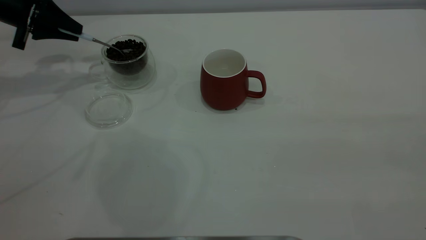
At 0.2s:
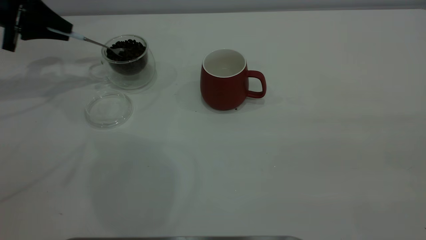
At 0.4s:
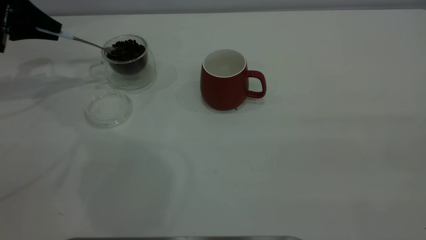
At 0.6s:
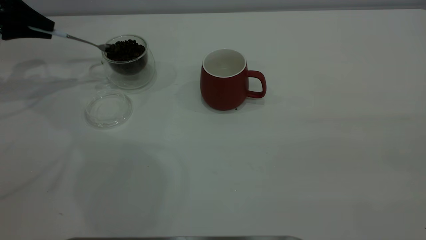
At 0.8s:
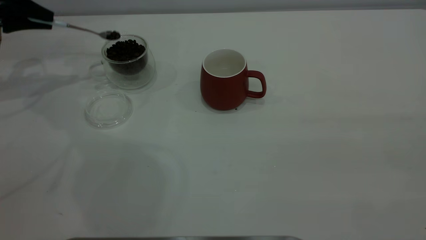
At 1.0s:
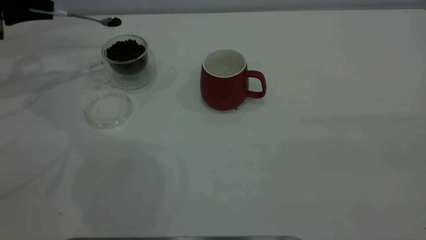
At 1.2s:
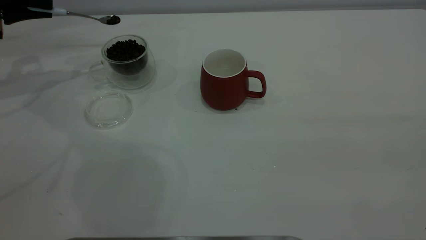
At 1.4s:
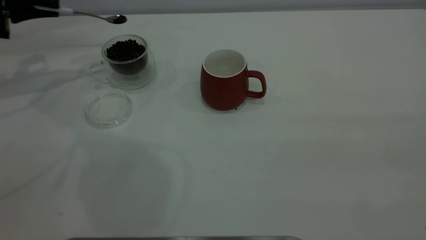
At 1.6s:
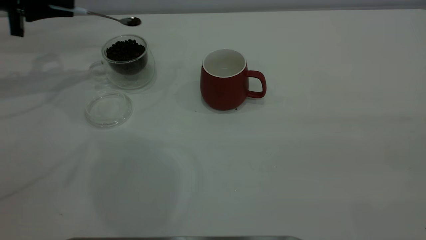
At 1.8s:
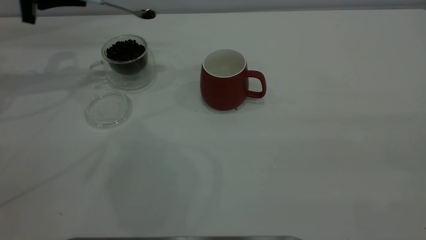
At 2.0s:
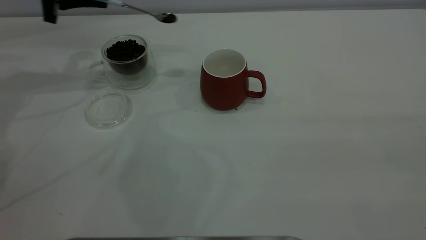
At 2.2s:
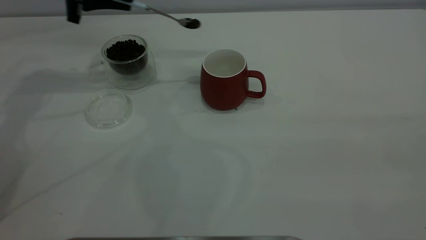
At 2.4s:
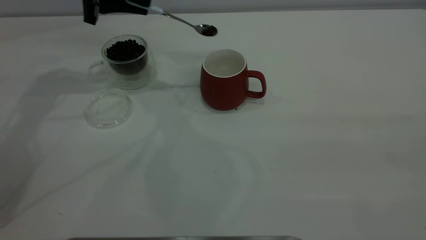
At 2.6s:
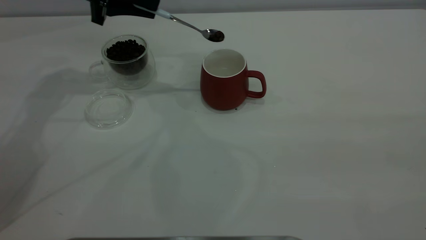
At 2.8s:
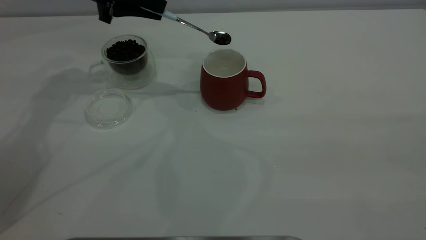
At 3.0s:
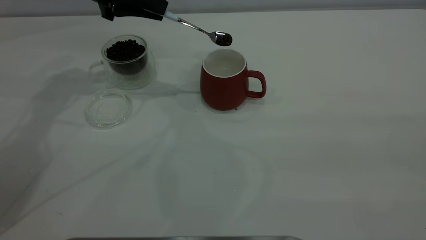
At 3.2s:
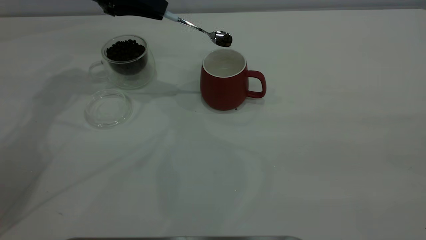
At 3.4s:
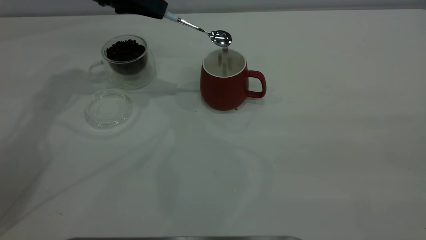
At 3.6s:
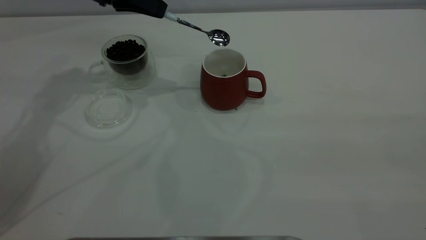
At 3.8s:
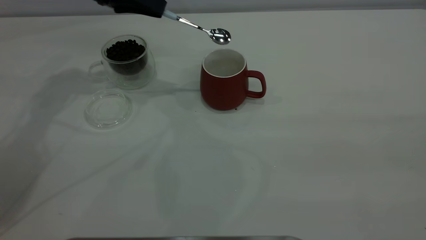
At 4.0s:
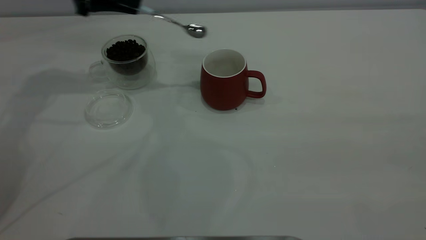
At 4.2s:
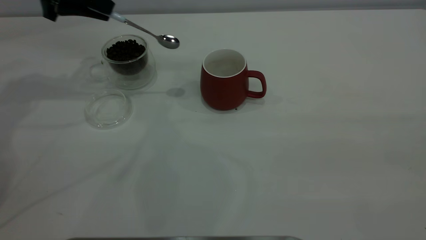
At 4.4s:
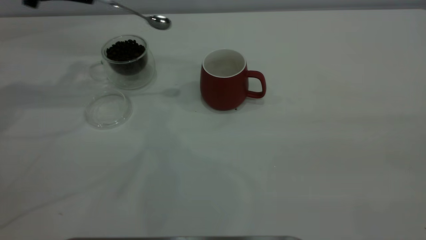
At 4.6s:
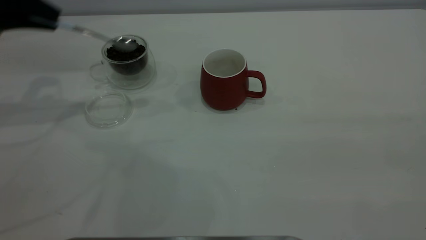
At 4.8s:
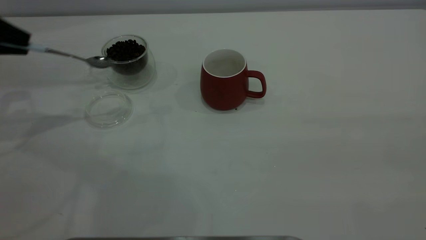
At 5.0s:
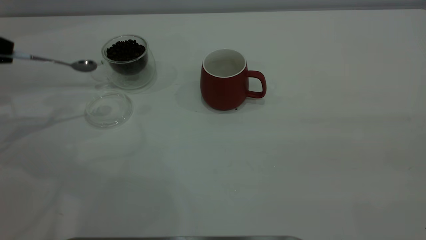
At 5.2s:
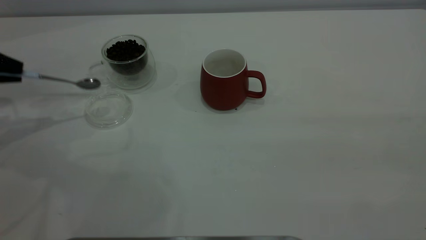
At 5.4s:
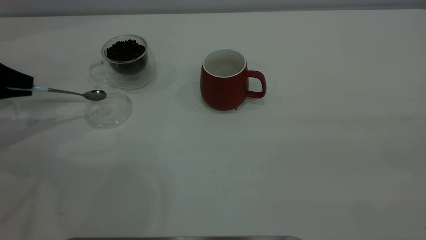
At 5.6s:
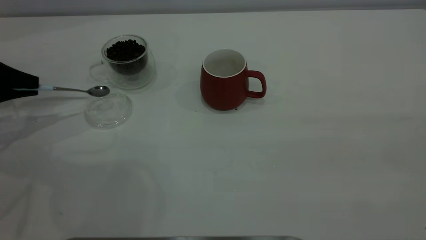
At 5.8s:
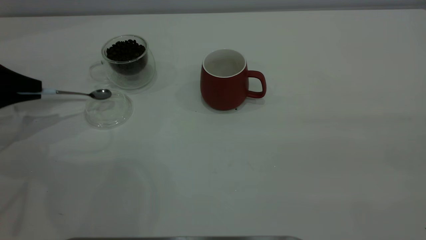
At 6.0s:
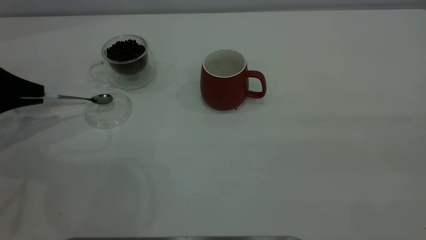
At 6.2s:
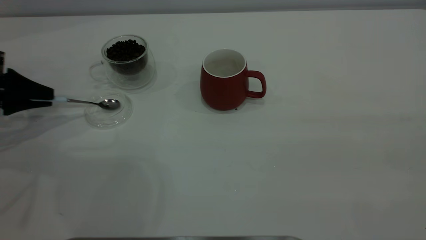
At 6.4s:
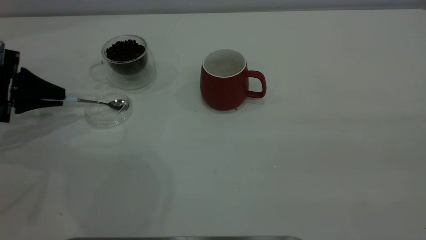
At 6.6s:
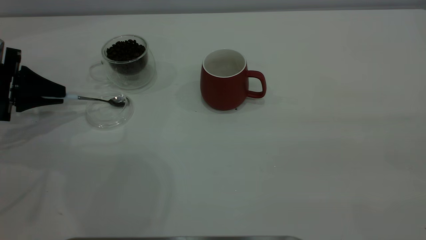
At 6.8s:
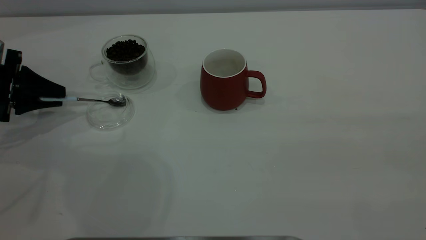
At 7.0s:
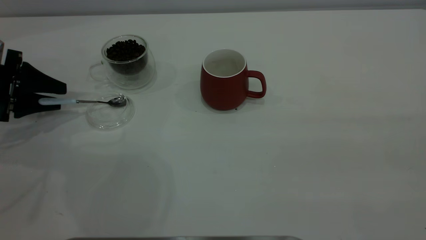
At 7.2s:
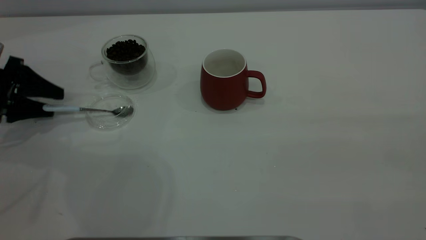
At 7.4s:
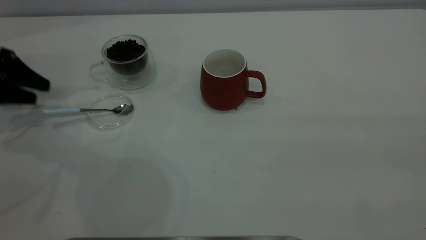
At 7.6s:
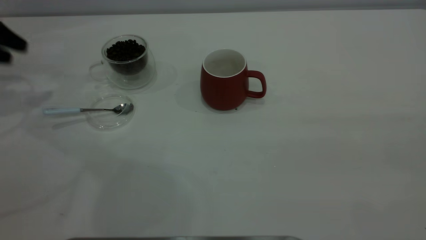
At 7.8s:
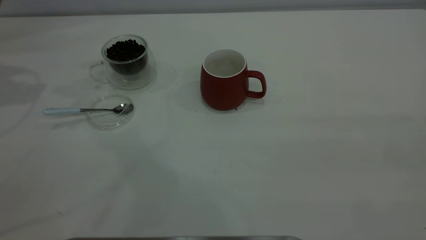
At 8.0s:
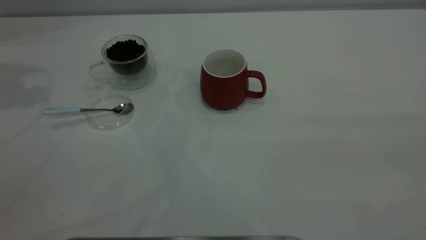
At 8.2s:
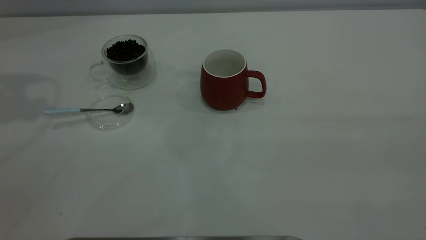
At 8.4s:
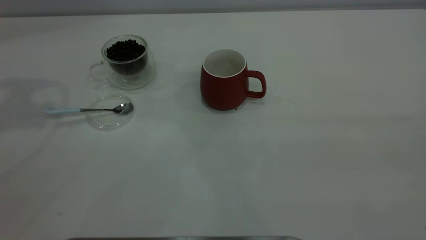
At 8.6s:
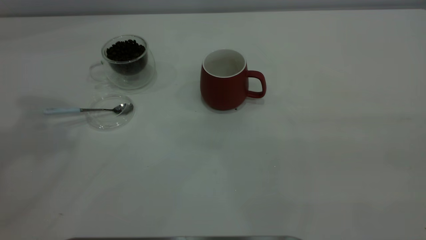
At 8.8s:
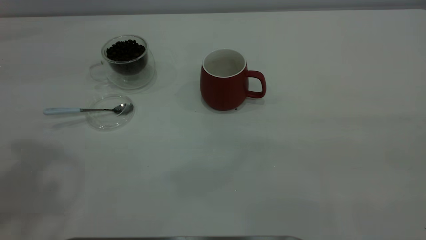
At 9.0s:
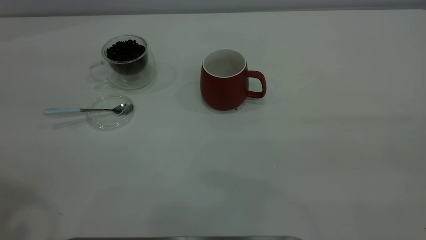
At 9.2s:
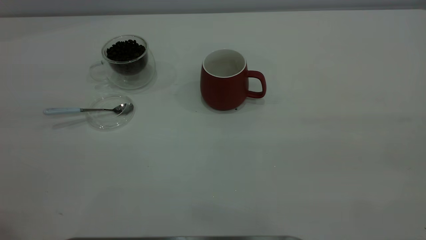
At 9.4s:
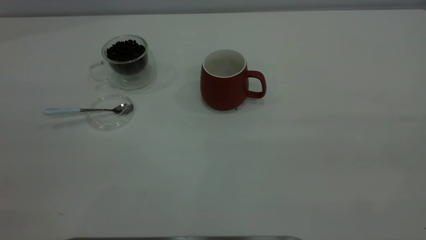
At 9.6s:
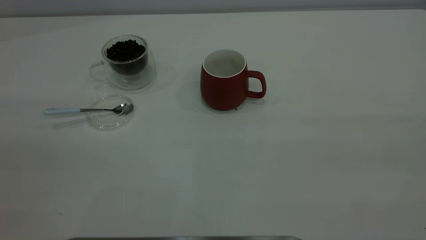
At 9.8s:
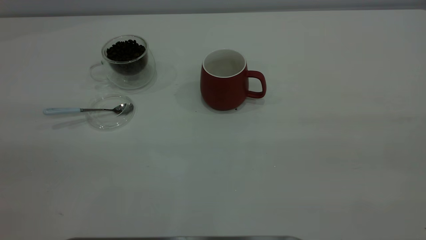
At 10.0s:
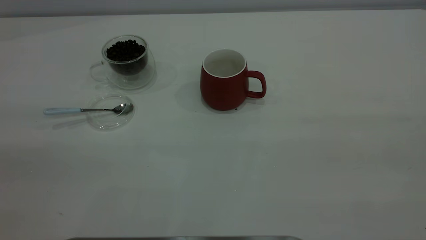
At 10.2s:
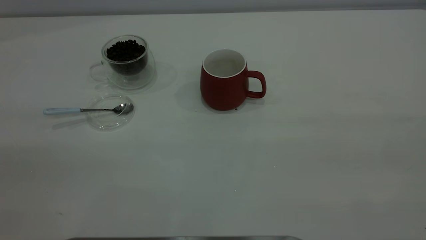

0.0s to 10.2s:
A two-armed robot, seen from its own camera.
Task of the whole recording: the right gripper place the red cup in the center of the table, the left gripper take the blue spoon from the cup lid and scoop out the coffee beans from the coffee cup and put them into the red cup, the left gripper put the spoon back into the cup lid.
Step, 0.0s to 3.8s: Scoop a spoonful of beans into the cup.
Step, 4.0s to 7.2s: Place the spoon back in its original place.
0.0s to 1.4s: The grippers move only a little.
1.4s to 3.0s: The left gripper moves to the right, roughly 20 cm.
3.0s to 4.4s: The left gripper heads to the left, covering approximately 10 cm.
4.4s to 5.8s: The left gripper moves downward, to the left and backward, roughly 20 cm.
5.8s to 7.2s: The left gripper opens its fingers.
7.2s to 8.8s: The left gripper shifts roughly 35 cm upward.

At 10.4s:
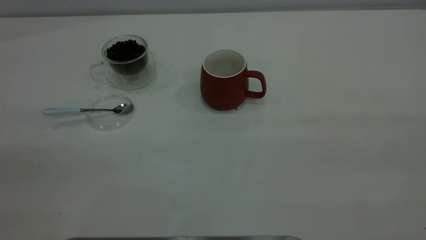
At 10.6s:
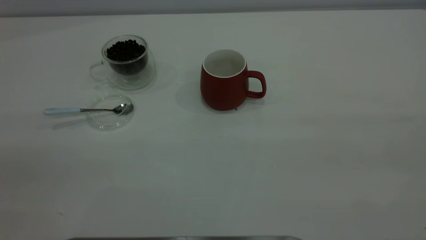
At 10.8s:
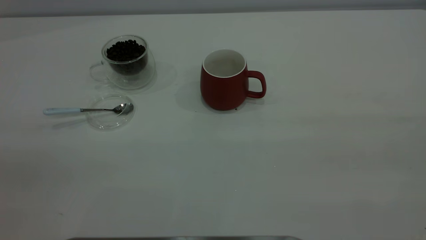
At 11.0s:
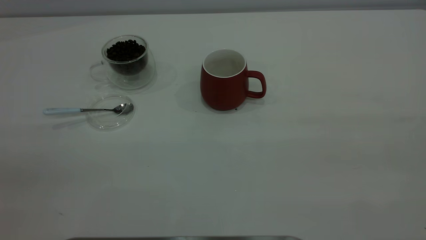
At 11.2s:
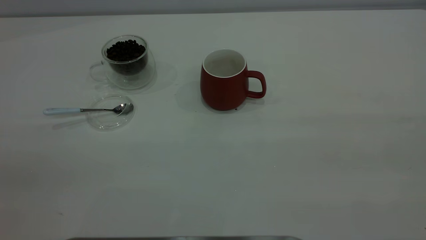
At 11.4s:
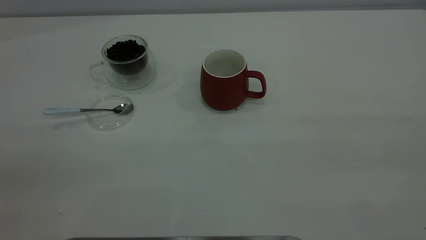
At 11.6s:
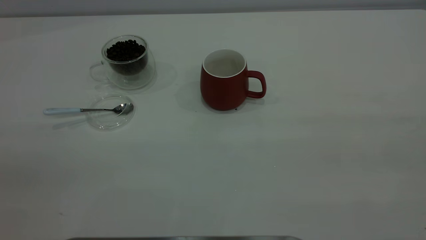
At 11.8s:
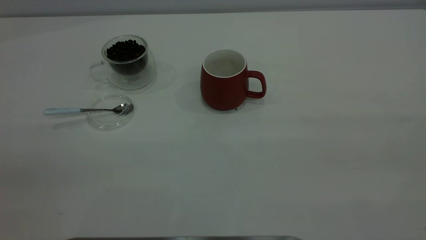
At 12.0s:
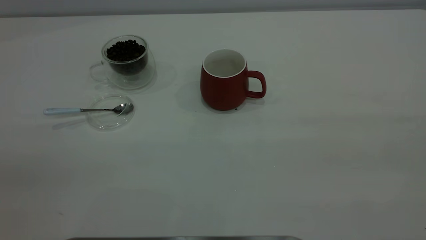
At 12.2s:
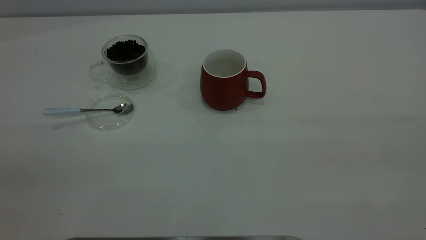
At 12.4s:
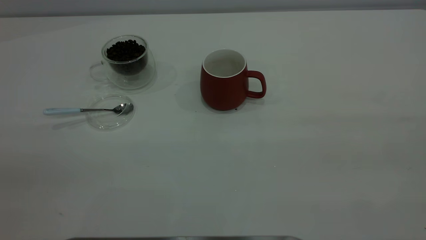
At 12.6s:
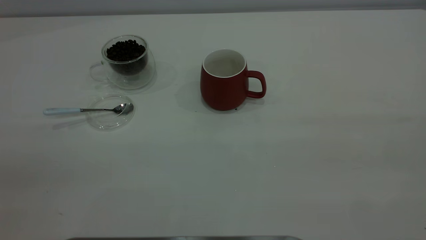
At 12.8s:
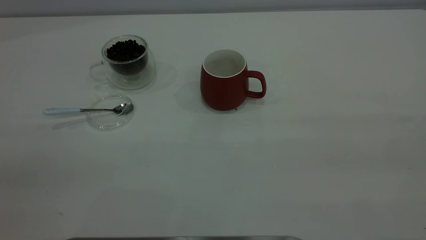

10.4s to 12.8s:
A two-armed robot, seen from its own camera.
Task of the whole recording: the right gripper place the red cup in the center of the table, the left gripper take the blue spoon from the cup lid and scoop out the coffee beans from the coffee cup and put them into the red cup, the left gripper put the spoon back into the cup lid.
11.6s to 12.8s: Neither gripper changes place.
